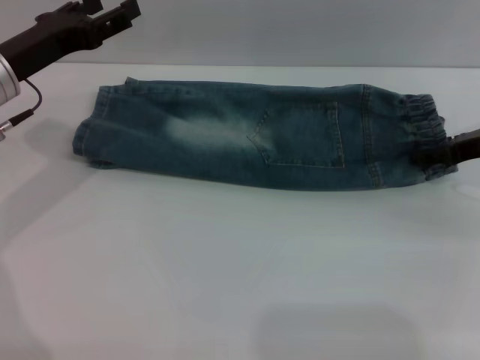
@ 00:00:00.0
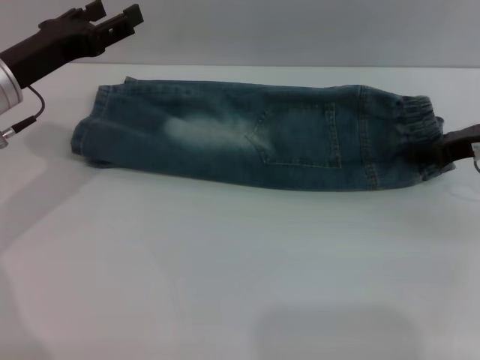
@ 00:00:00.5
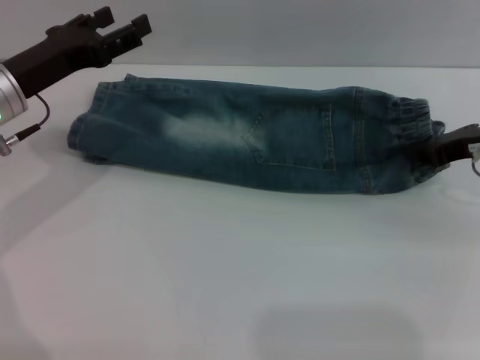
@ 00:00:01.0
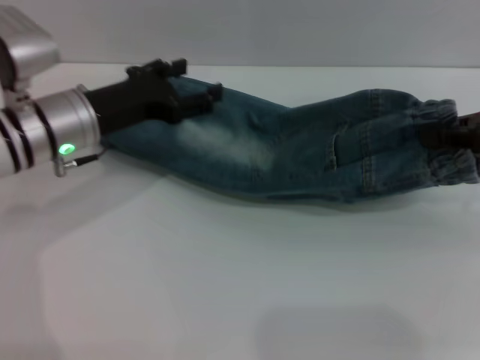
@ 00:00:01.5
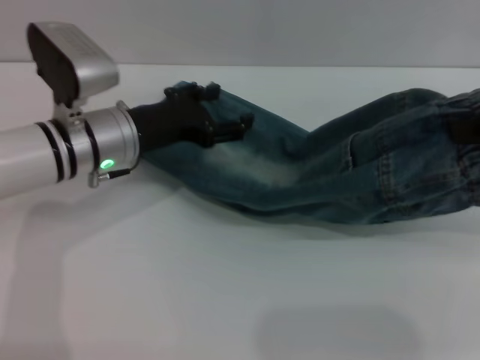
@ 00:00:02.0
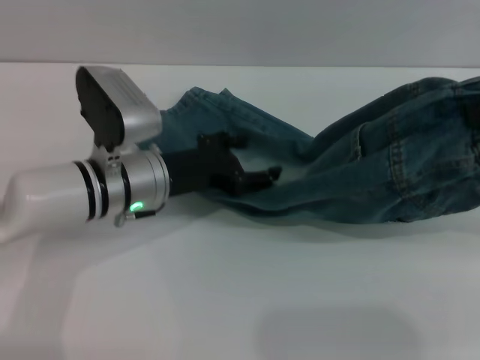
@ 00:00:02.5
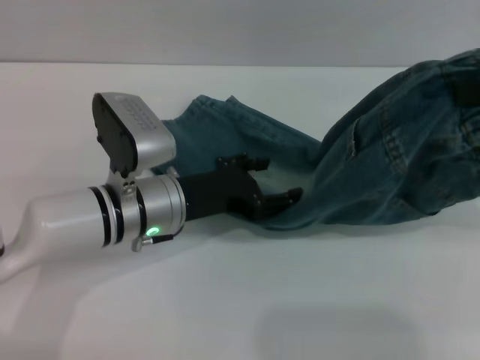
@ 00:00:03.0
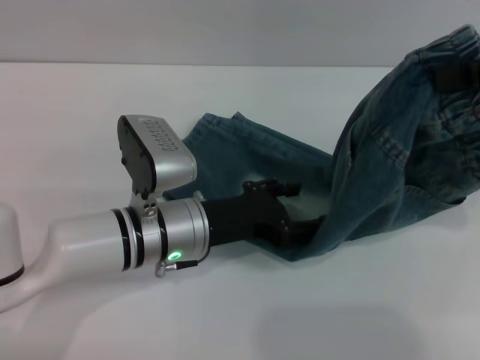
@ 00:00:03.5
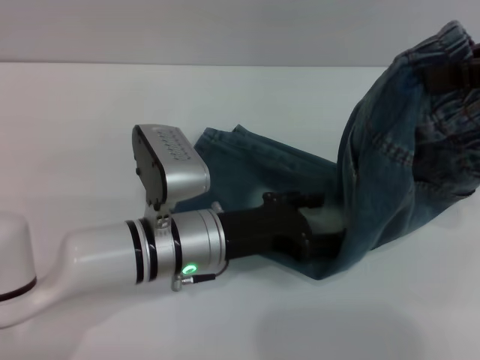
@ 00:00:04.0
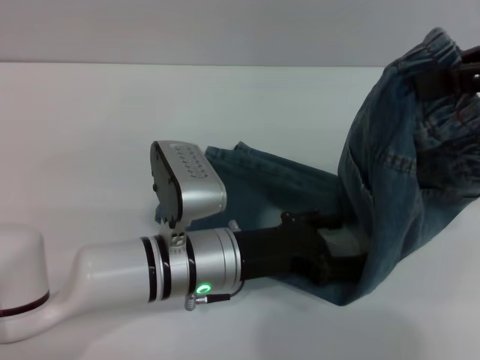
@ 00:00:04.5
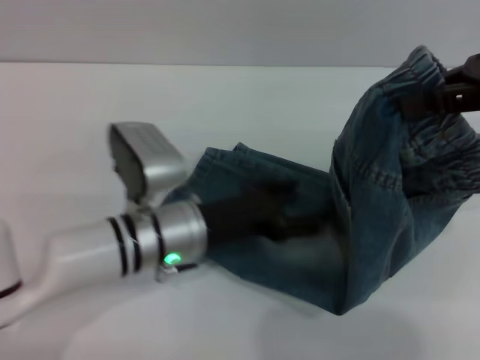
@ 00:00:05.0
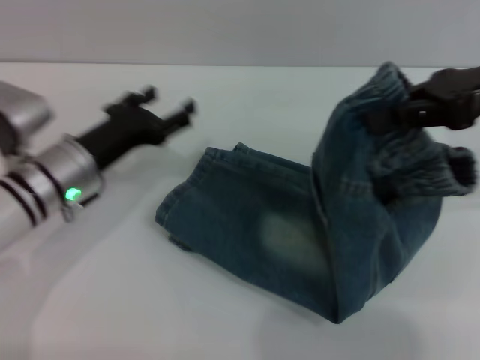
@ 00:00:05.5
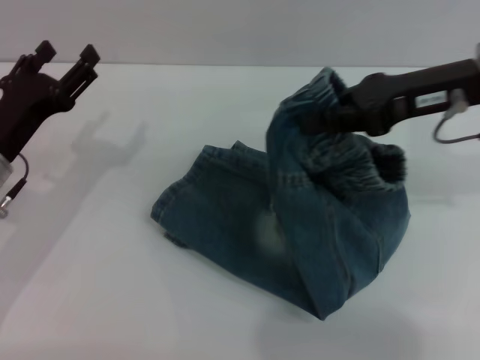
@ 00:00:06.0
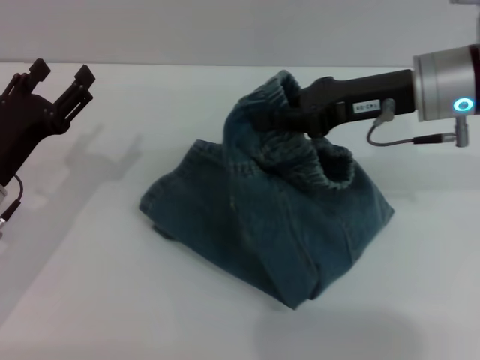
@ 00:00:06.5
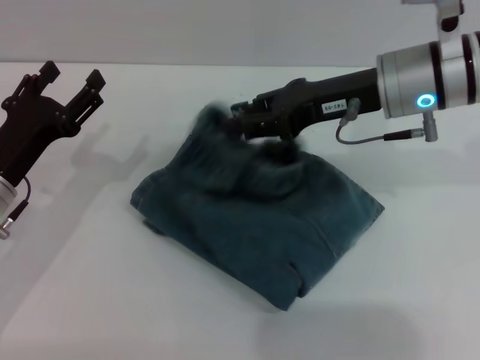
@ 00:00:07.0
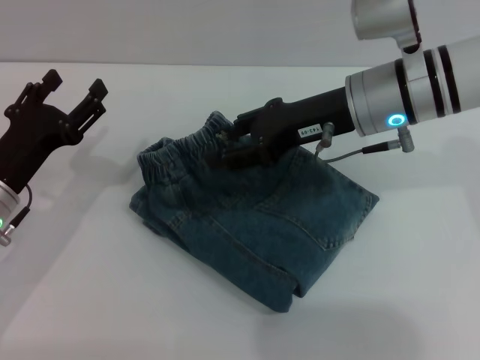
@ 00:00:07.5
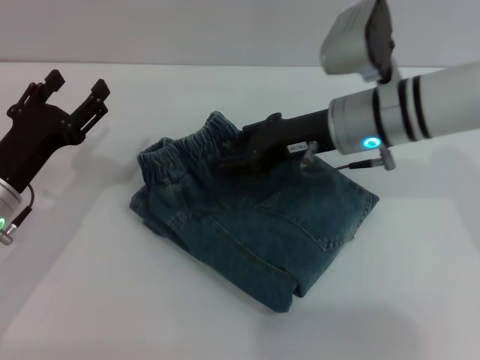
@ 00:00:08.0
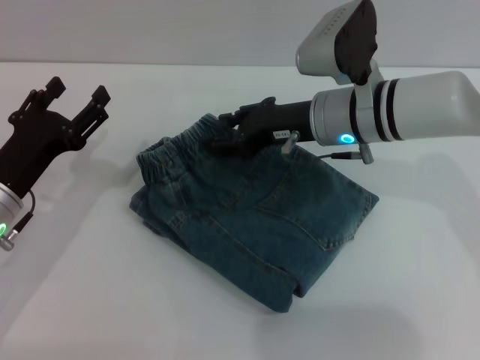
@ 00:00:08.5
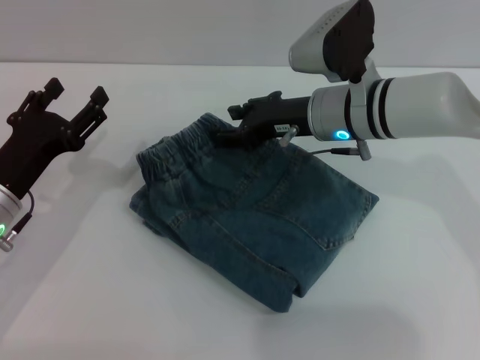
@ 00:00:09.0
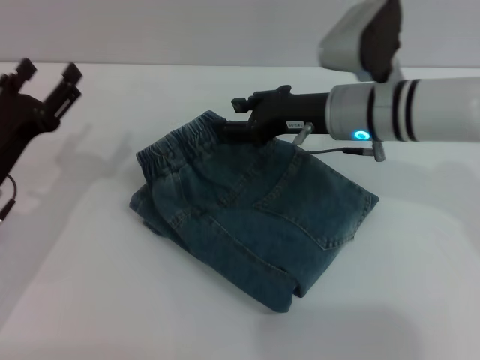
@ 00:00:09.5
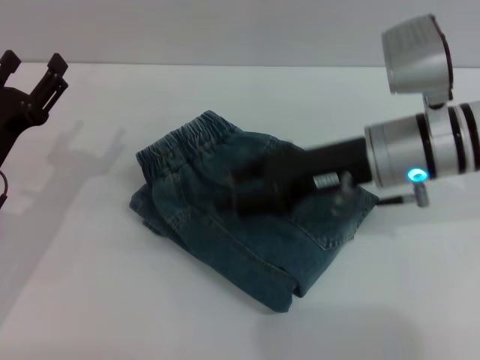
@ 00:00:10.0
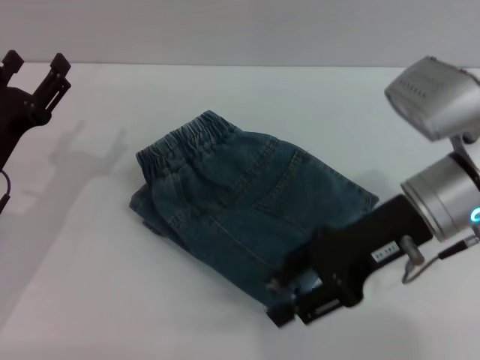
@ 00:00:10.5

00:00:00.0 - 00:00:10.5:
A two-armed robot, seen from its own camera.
Step, 00:00:00.0 - 00:00:07.5: Fold the pants from right to left with the right gripper.
00:00:00.0 - 00:00:02.0: The left gripper is displaced to the right and downward by some 10 cm. The right gripper goes roughly 15 cm upward and backward, and closes its fingers.
00:00:02.0 - 00:00:04.0: The right gripper shifts by roughly 5 cm; the left gripper shifts about 10 cm backward and to the right.
00:00:04.0 - 00:00:06.5: The right gripper is displaced to the left and downward by some 15 cm. The left gripper goes approximately 20 cm to the left.
00:00:06.5 - 00:00:08.5: The right gripper goes roughly 10 cm to the left and downward, and opens its fingers.
00:00:08.5 - 00:00:10.5: The right gripper heads backward and to the right, covering some 10 cm.

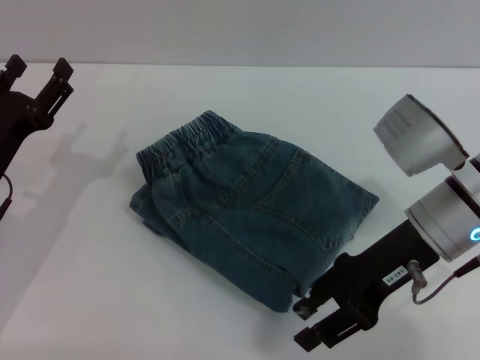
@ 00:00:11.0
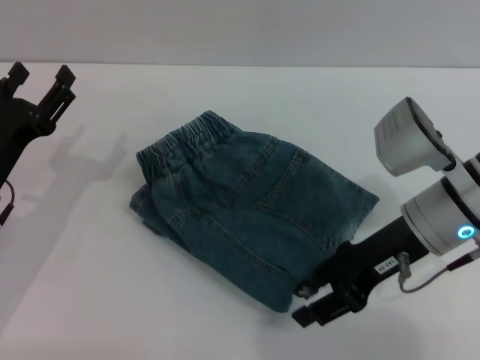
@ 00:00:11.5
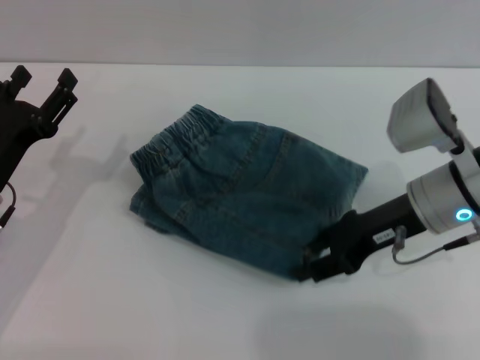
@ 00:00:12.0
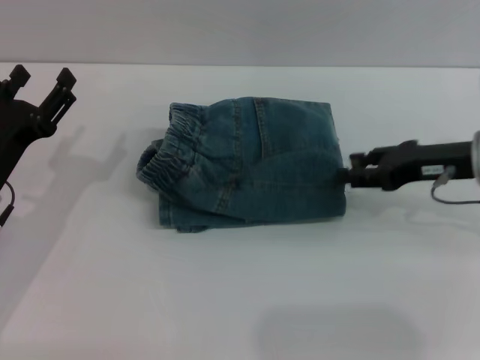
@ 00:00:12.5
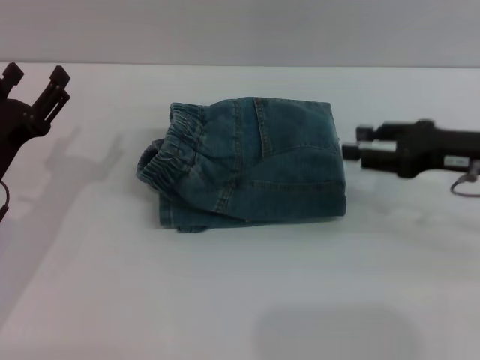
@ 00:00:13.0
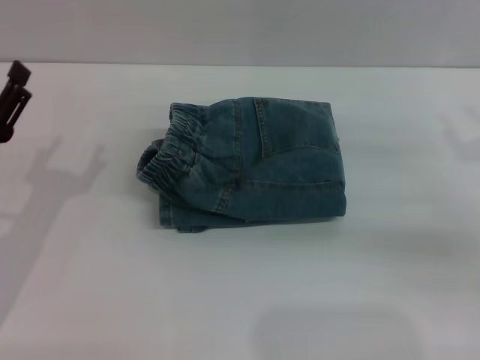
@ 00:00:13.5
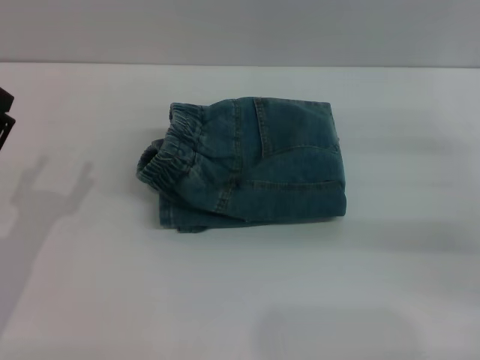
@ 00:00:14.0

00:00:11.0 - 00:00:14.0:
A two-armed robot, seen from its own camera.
00:00:11.0 - 00:00:12.5: The right gripper travels to the right by some 10 cm.
00:00:12.5 - 00:00:14.0: The right gripper heads to the right, covering some 10 cm, while the left gripper travels backward by approximately 5 cm.
